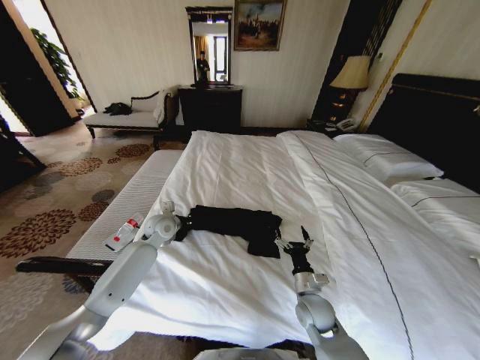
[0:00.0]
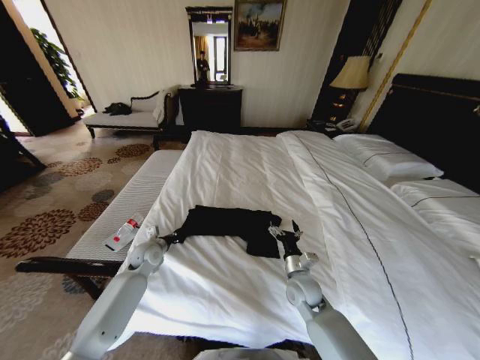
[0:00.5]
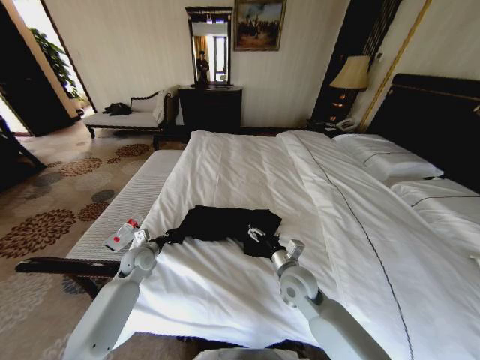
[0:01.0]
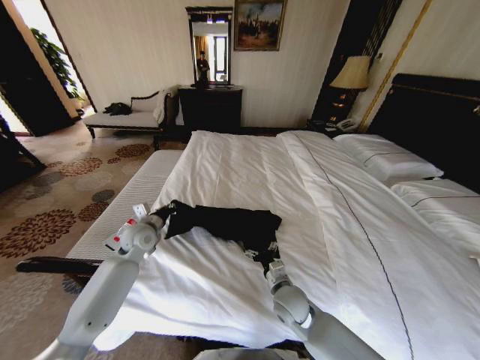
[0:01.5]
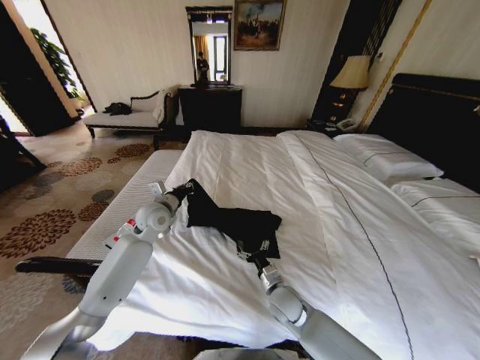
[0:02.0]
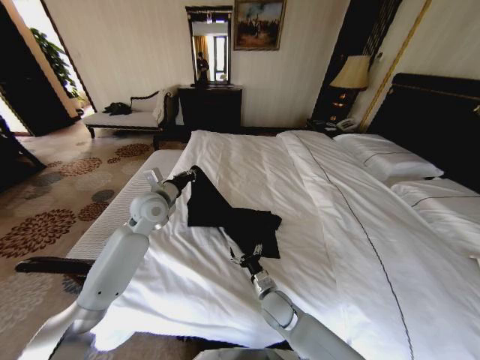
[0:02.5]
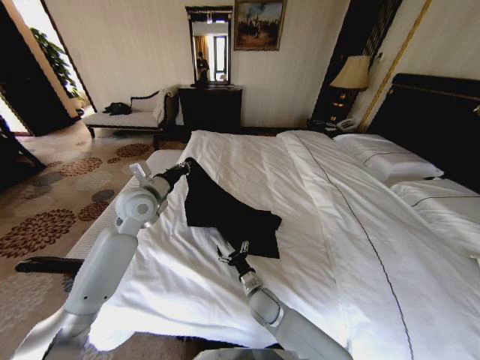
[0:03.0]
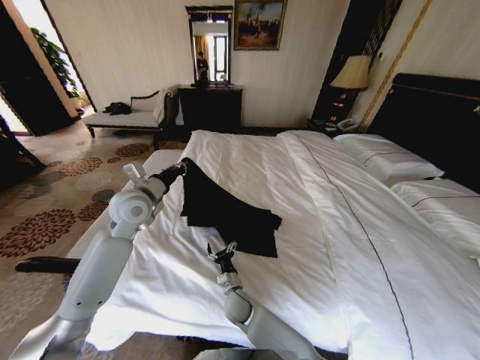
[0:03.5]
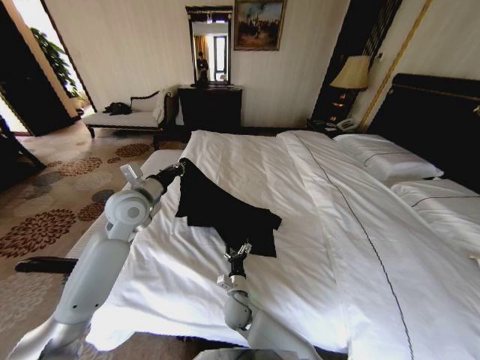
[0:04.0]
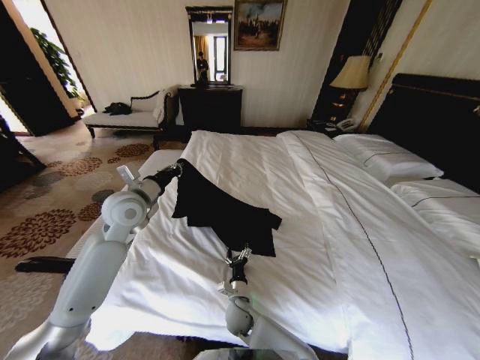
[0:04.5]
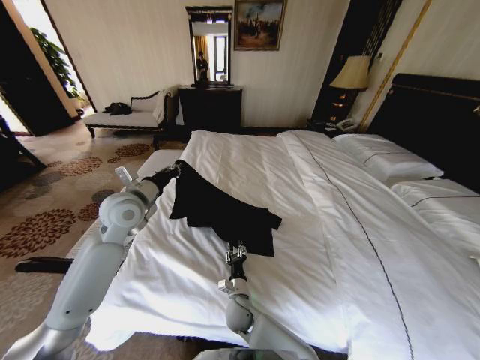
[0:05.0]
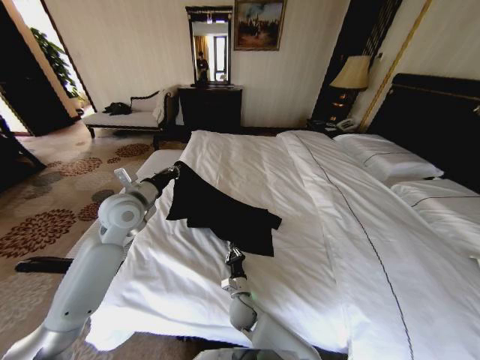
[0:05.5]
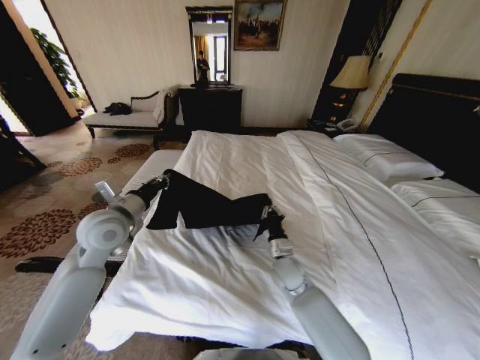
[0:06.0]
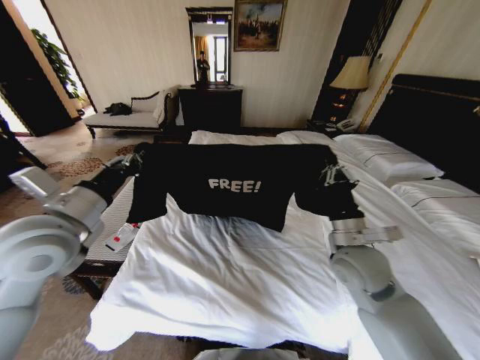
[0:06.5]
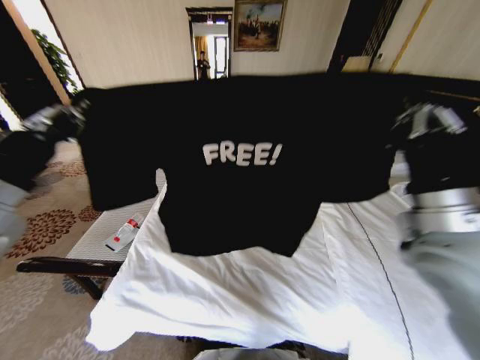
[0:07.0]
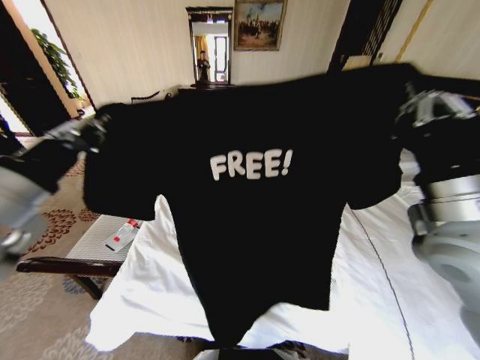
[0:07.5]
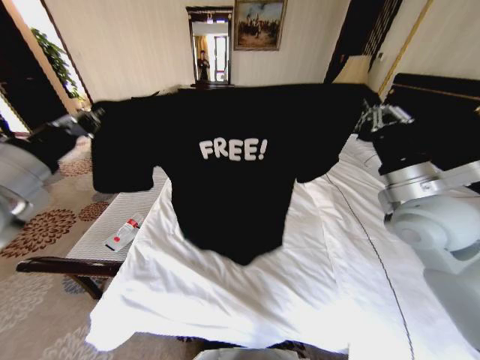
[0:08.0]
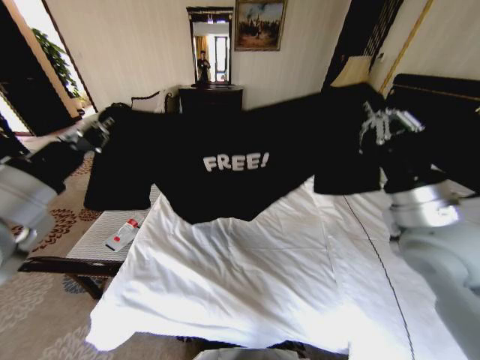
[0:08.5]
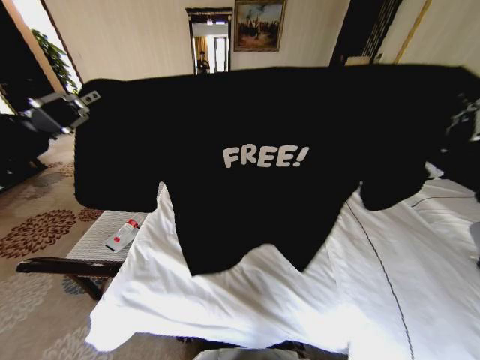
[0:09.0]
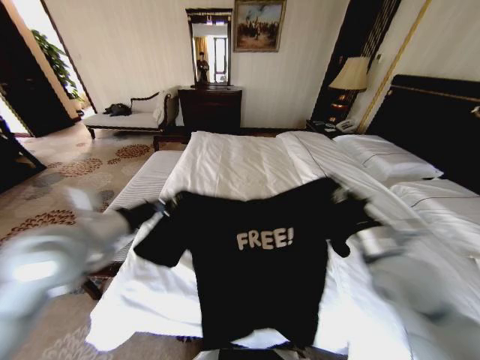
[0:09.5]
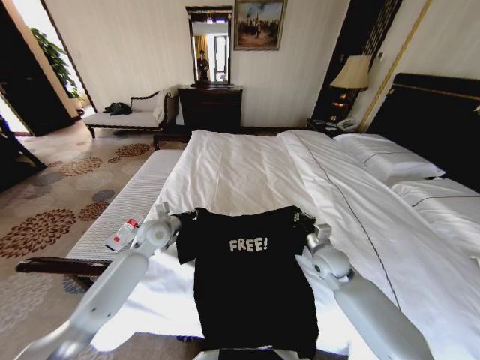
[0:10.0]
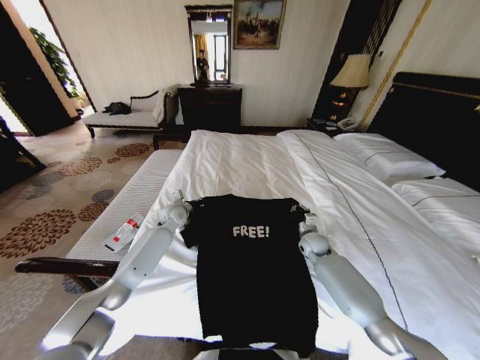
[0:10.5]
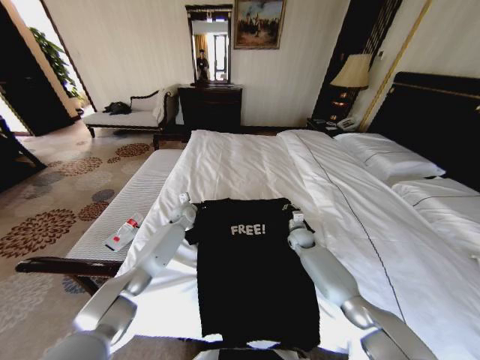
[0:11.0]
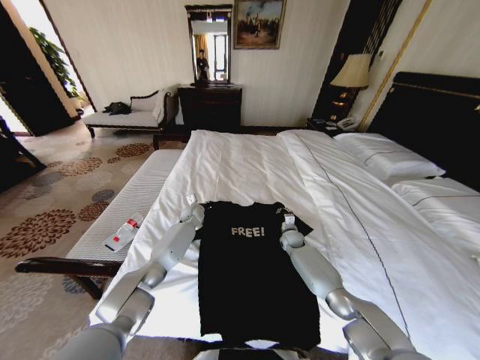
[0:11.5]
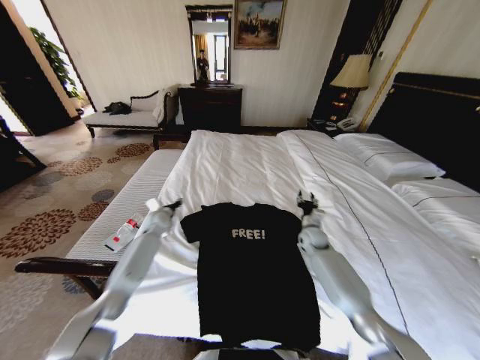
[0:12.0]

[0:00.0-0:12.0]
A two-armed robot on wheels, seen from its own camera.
Task of the whole recording: Fold the clothes on the bed.
0:00.0 to 0:02.0: The left gripper goes about 5 cm upward. Meanwhile the right gripper travels to the left by approximately 10 cm, and goes upward and returns, approximately 10 cm each way.
0:02.0 to 0:04.0: The left gripper shifts approximately 10 cm upward; the right gripper heads to the left and downward, covering roughly 15 cm.
0:04.0 to 0:06.0: The left gripper is displaced backward by roughly 5 cm. Meanwhile the right gripper goes approximately 20 cm to the right, upward and forward, and closes up.
0:06.0 to 0:08.0: The left gripper moves upward, backward and to the left, some 20 cm, while the right gripper moves upward and to the right, some 35 cm.
0:08.0 to 0:10.0: The right gripper shifts roughly 25 cm downward. Meanwhile the left gripper is displaced downward and forward by about 35 cm.
0:10.0 to 0:12.0: The right gripper is displaced forward and downward by about 10 cm, and opens. Meanwhile the left gripper goes some 10 cm forward, downward and to the left, and opens up.

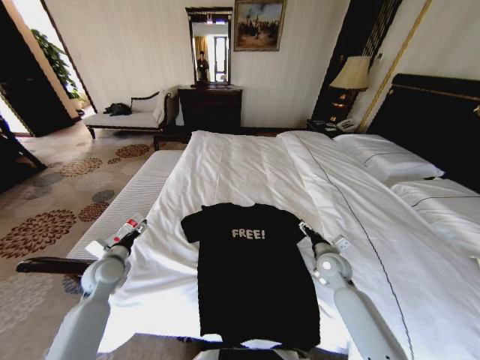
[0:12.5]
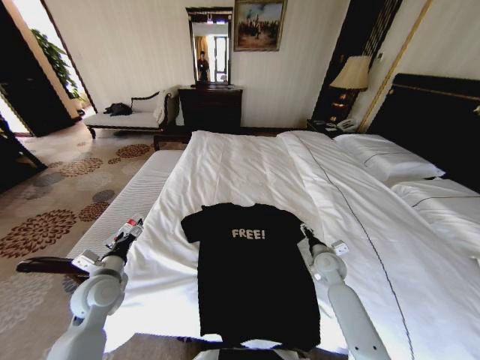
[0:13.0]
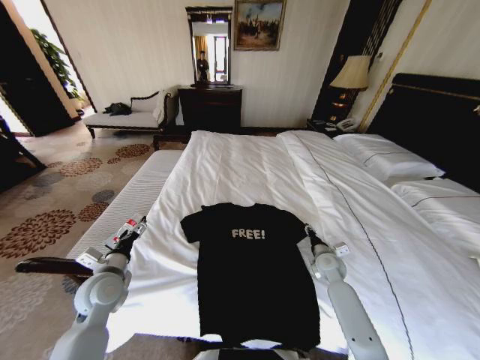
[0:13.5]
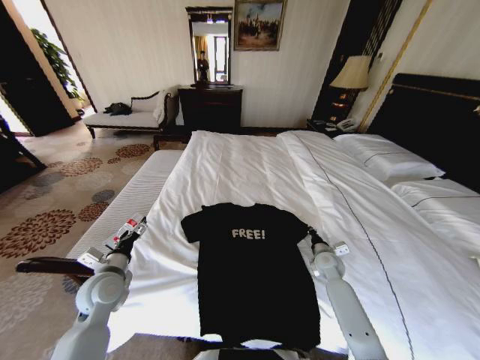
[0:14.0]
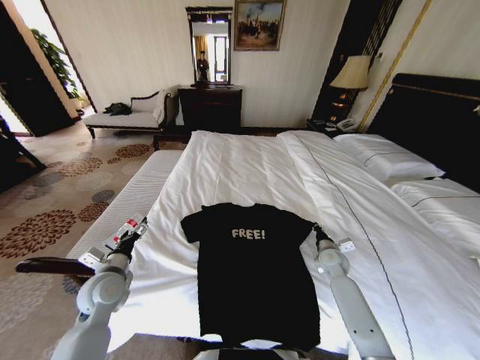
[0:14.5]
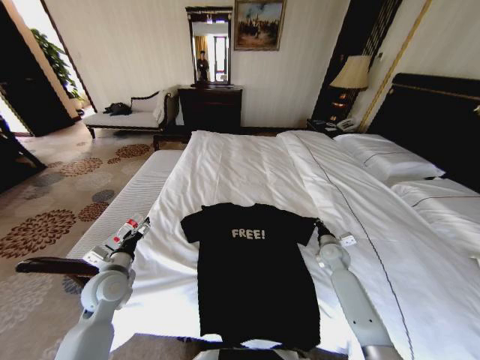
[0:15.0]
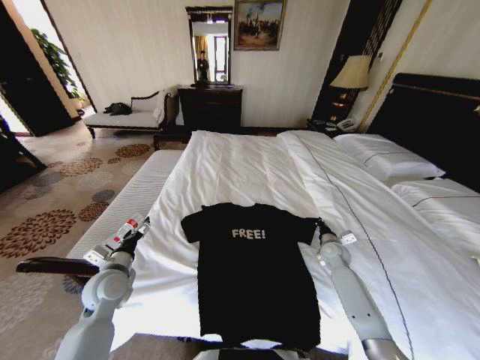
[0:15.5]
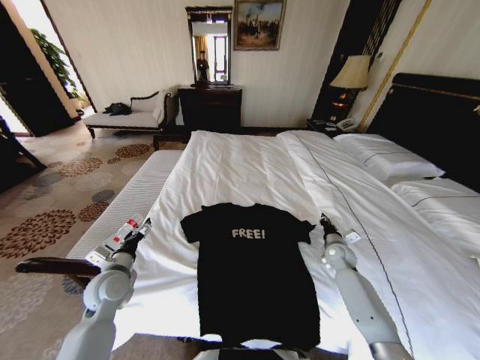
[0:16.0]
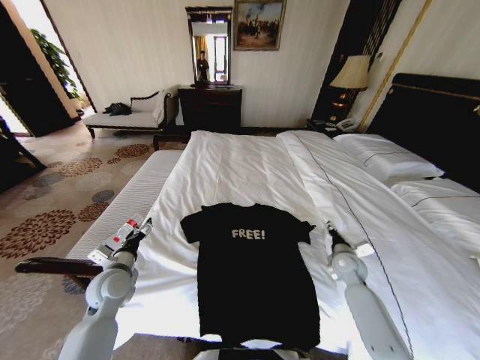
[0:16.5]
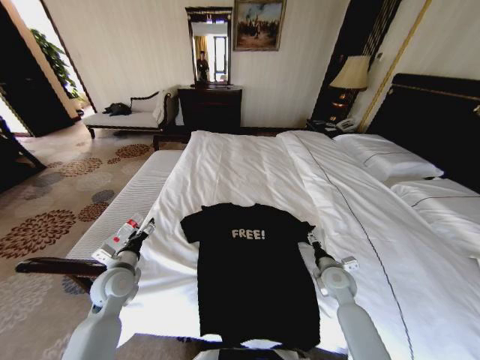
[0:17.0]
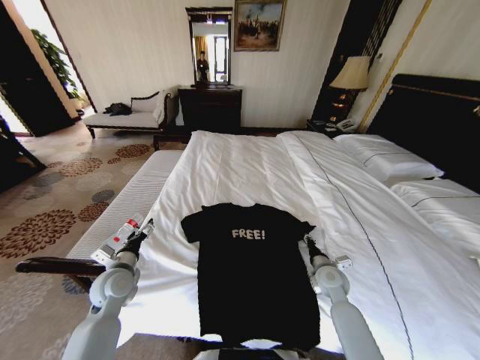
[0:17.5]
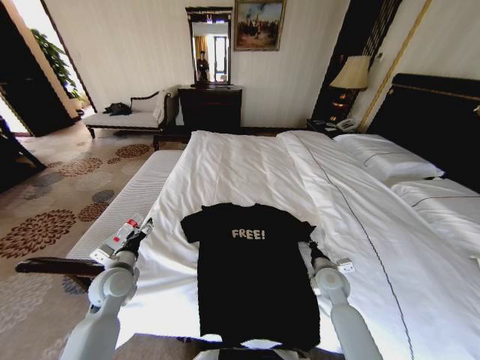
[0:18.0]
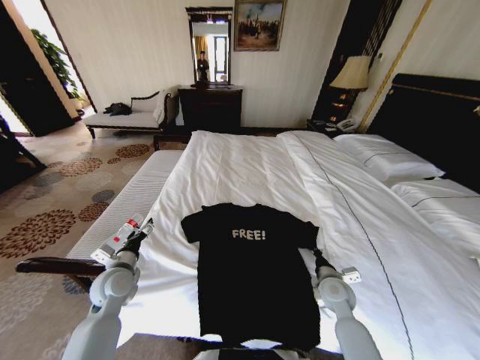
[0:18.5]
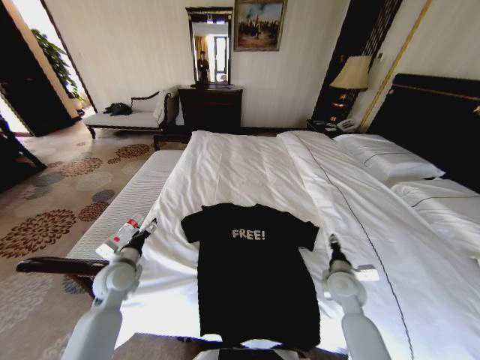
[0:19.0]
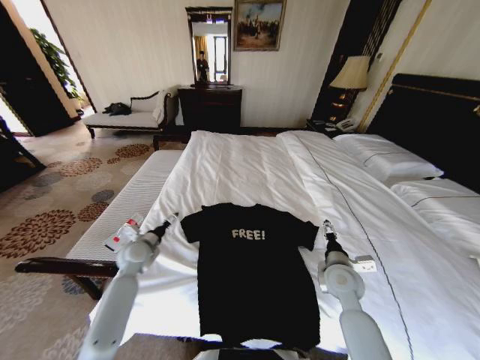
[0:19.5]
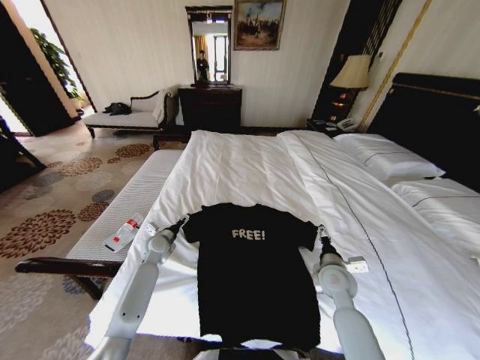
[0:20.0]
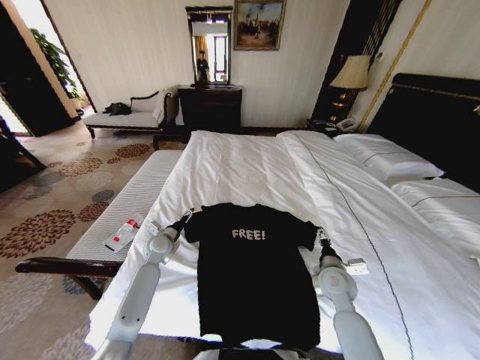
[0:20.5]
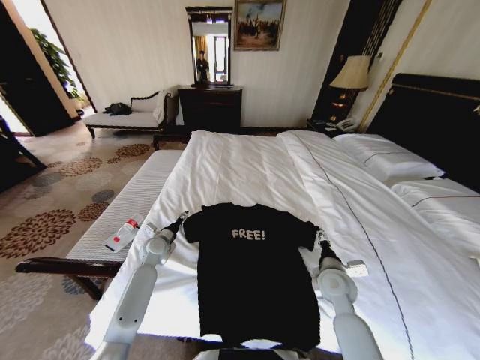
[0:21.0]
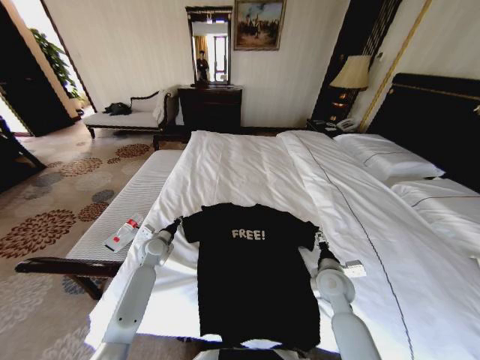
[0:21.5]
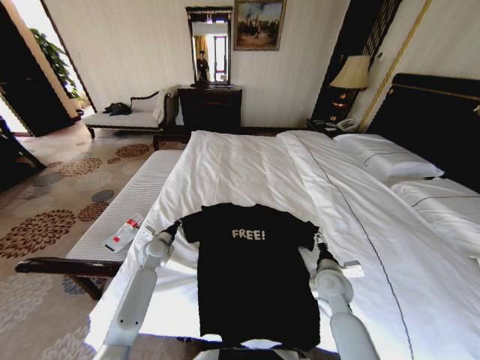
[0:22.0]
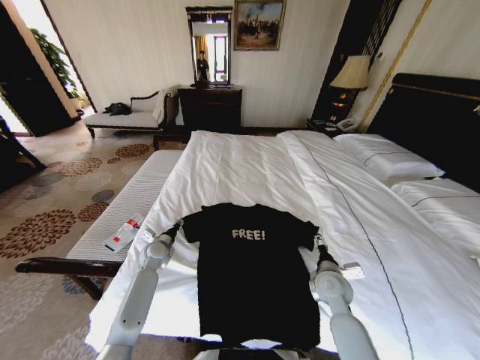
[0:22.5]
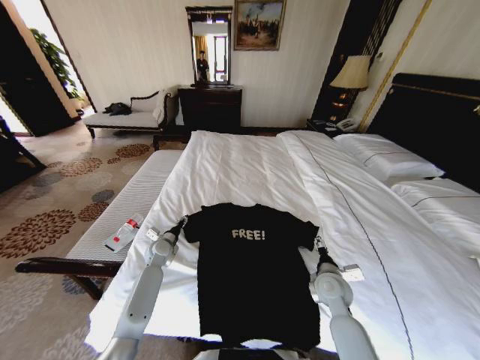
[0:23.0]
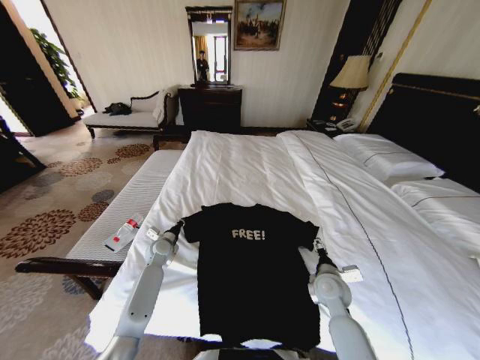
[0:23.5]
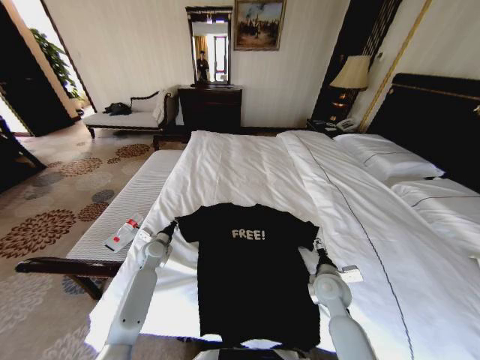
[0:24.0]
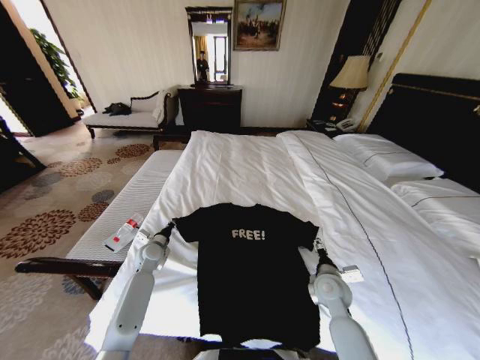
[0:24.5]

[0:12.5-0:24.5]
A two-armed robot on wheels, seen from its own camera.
Task of the whole recording: Fold the clothes on the bed.
0:12.5 to 0:14.5: The left gripper ends up about 5 cm from where it was. The right gripper moves about 5 cm, and closes its fingers.
0:14.5 to 0:16.5: The right gripper opens its fingers.
0:16.5 to 0:18.5: The right gripper heads to the left and backward, covering approximately 10 cm, and closes up.
0:18.5 to 0:20.5: The left gripper heads forward and to the right, covering some 15 cm, while the right gripper opens up.
0:20.5 to 0:22.5: The left gripper closes up.
0:22.5 to 0:24.5: The left gripper closes its fingers.

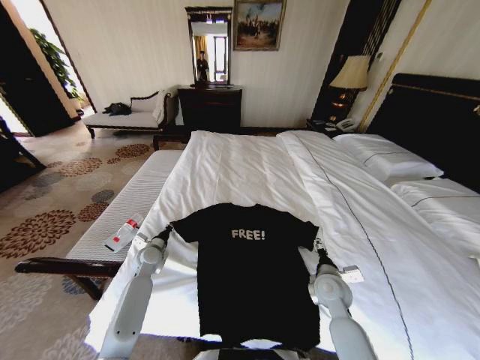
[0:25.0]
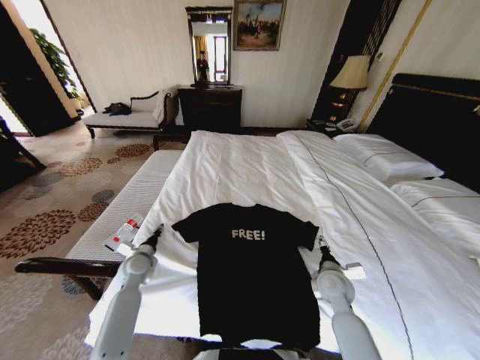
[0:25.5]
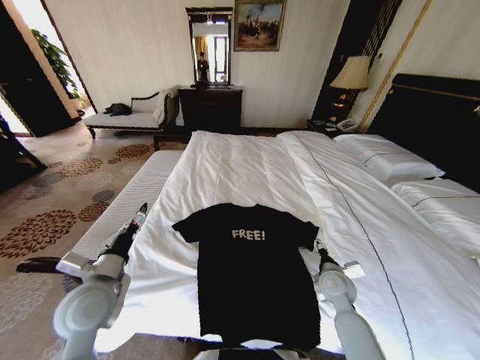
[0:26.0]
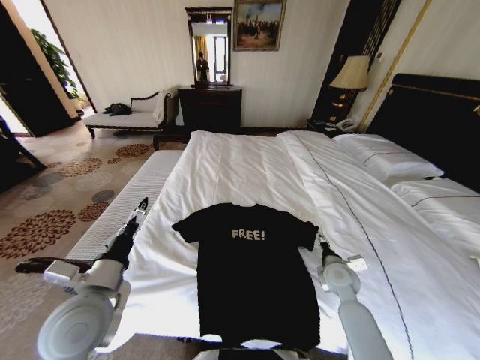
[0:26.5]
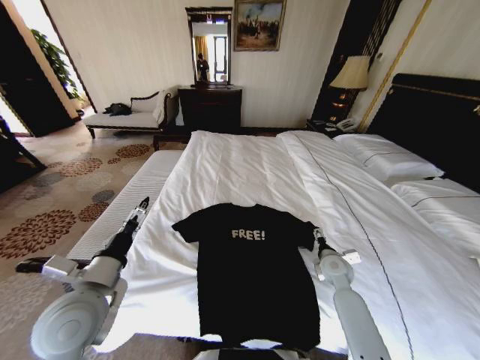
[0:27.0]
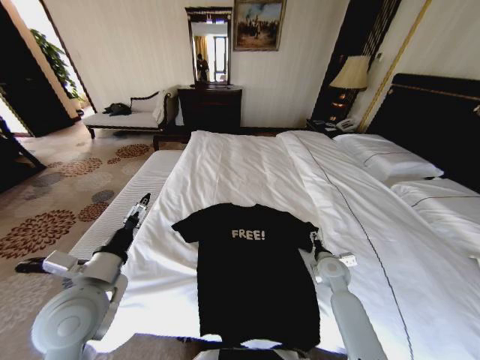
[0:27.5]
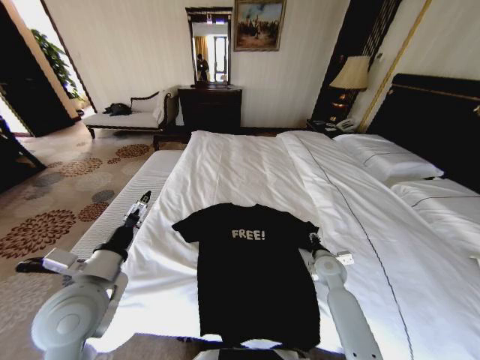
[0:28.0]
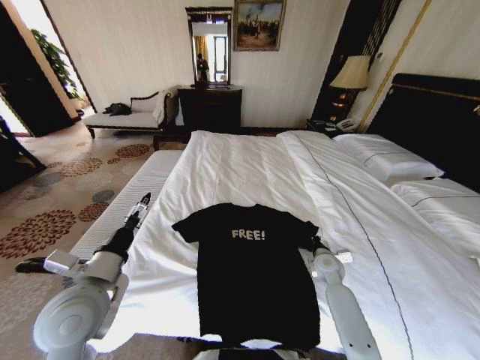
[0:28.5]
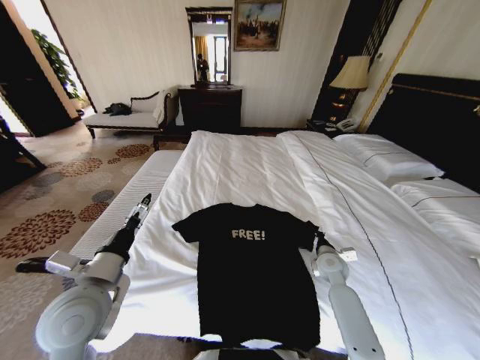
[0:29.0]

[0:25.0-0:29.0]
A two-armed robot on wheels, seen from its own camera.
Task of the whole recording: Fold the clothes on the bed.
0:25.0 to 0:27.0: The left gripper goes about 30 cm backward and upward, and opens its fingers. Meanwhile the right gripper goes some 10 cm forward and to the right.
0:27.0 to 0:29.0: The right gripper closes.
